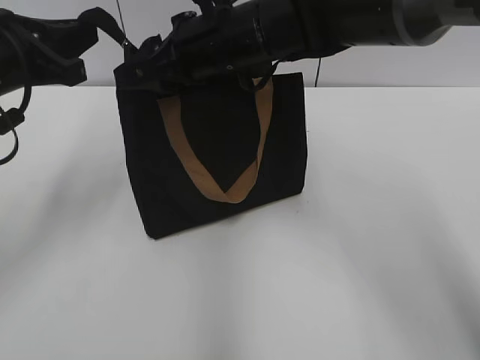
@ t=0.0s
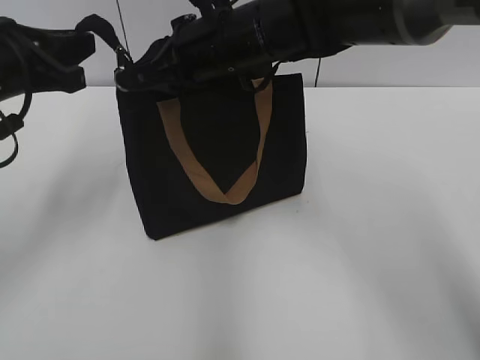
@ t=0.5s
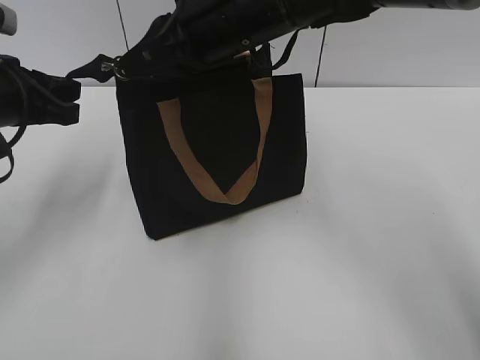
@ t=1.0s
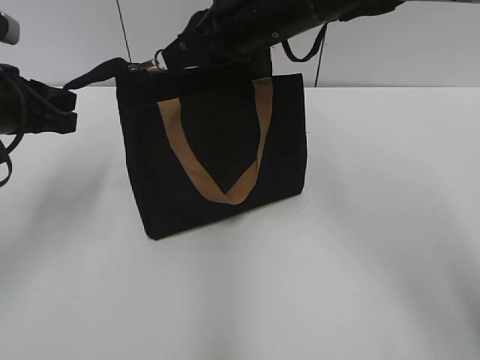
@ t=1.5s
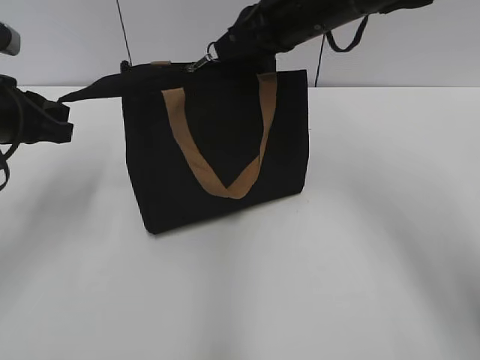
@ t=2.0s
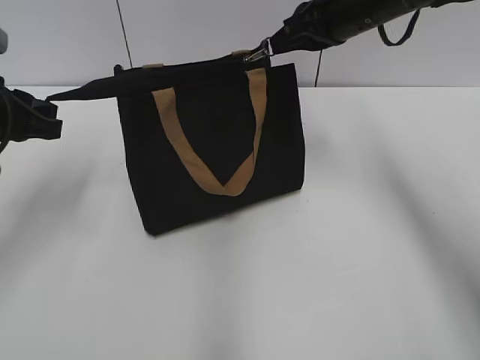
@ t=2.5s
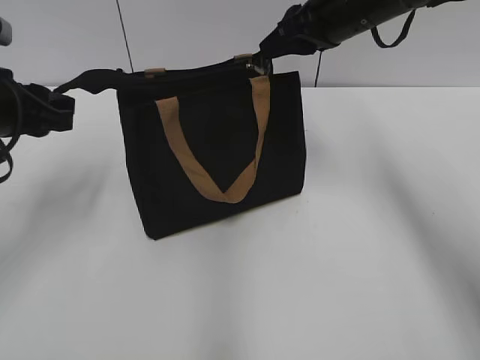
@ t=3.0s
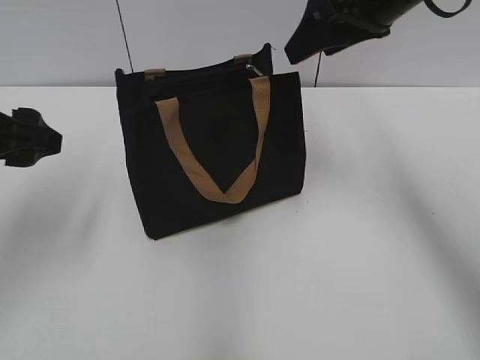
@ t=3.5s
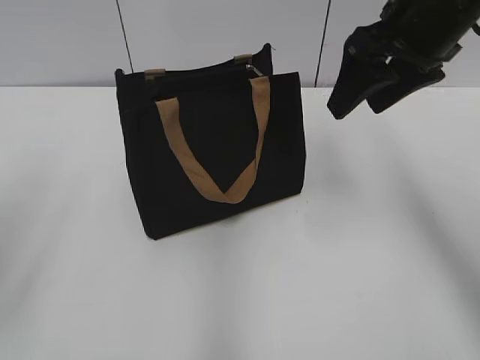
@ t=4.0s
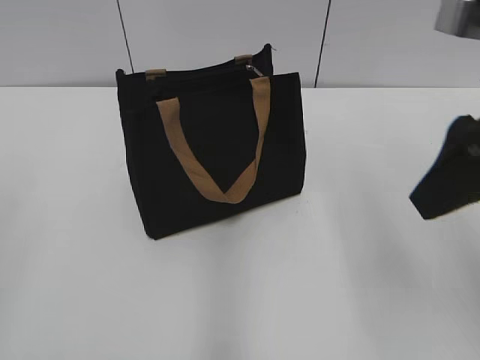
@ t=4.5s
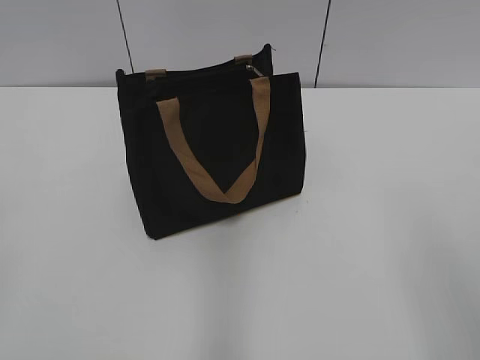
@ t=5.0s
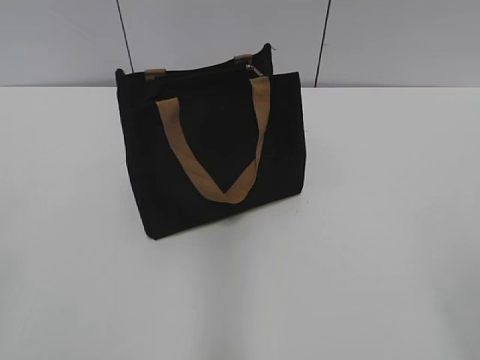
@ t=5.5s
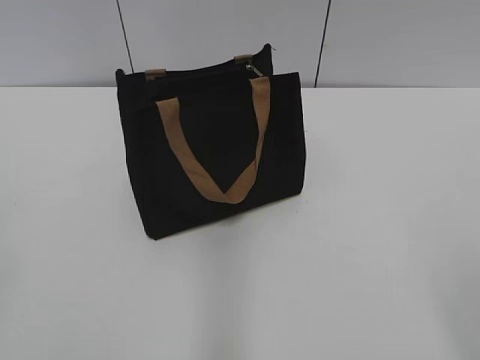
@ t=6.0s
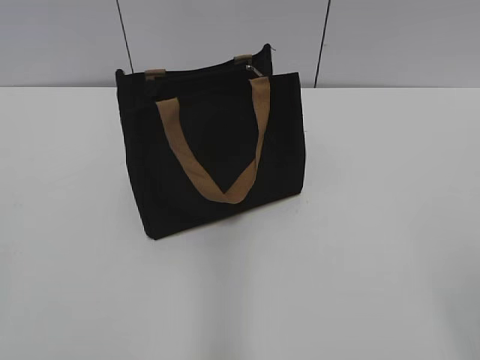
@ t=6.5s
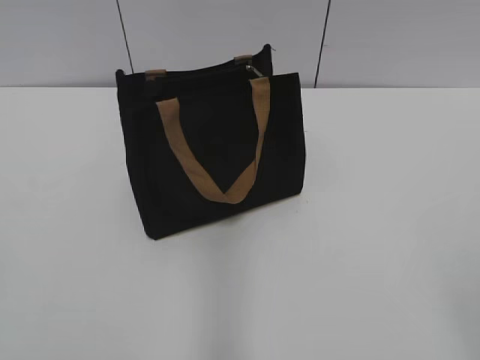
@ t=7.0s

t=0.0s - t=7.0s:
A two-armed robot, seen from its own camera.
Step, t=0.0s - t=3.0s: Zip up the bag with your right hand.
t=0.0s - t=2.0s: The right gripper goes roughly 10 cm to the right, and closes its fingers.
t=2.0s - t=3.5s: The left gripper opens up. The right gripper moves to the right, approximately 5 cm, and opens.
t=3.5s - t=5.0s: The two grippers go roughly 25 cm backward.

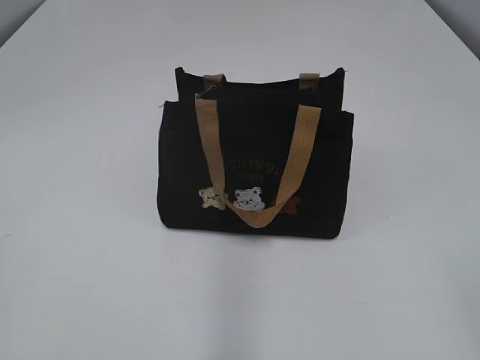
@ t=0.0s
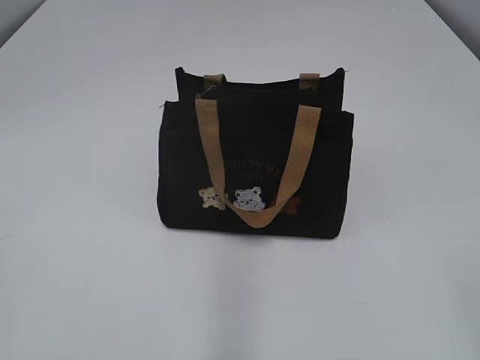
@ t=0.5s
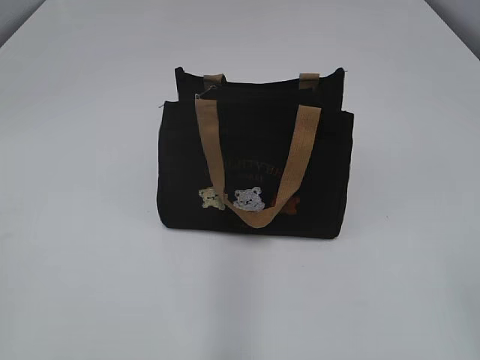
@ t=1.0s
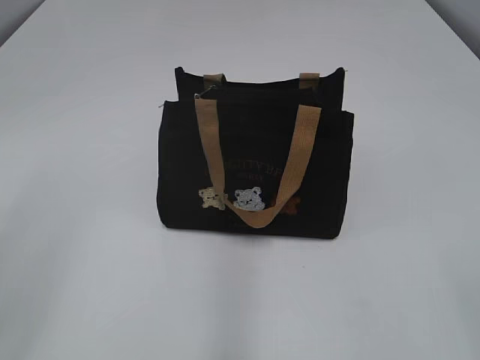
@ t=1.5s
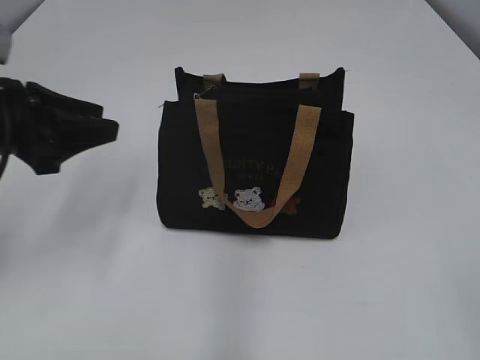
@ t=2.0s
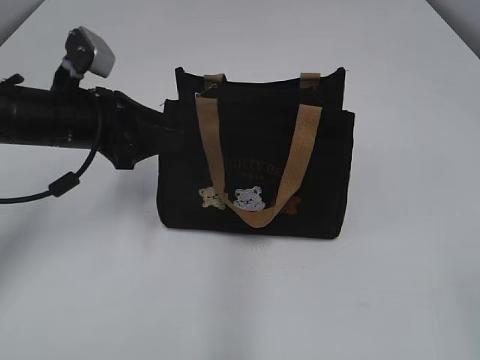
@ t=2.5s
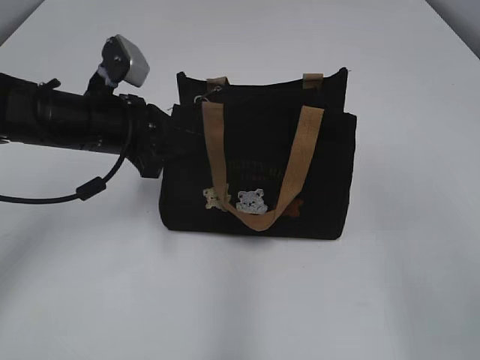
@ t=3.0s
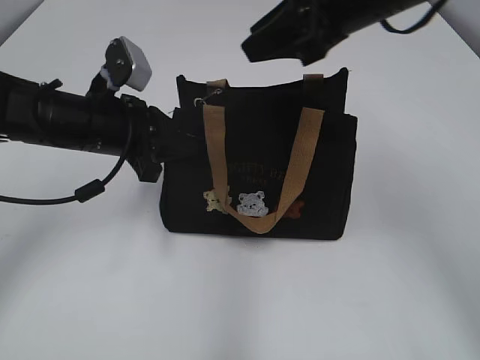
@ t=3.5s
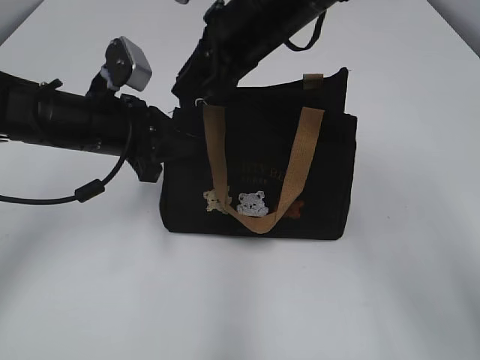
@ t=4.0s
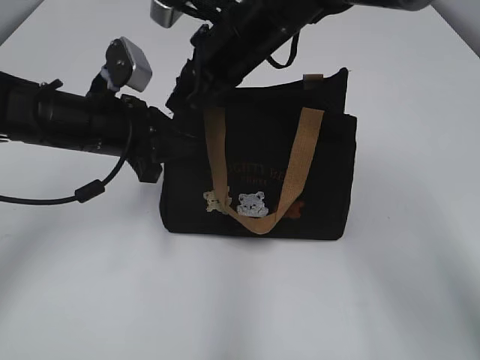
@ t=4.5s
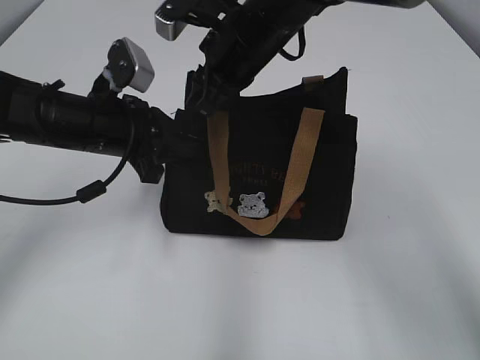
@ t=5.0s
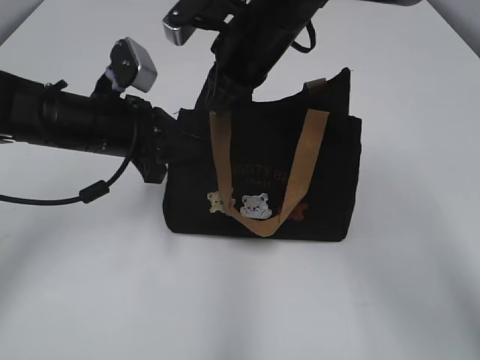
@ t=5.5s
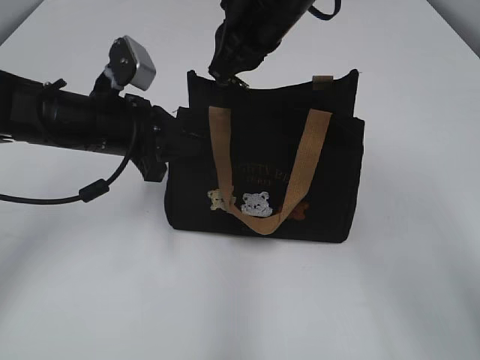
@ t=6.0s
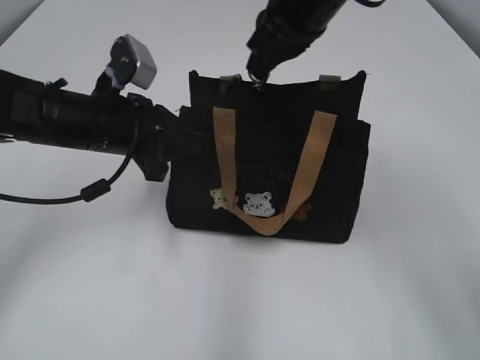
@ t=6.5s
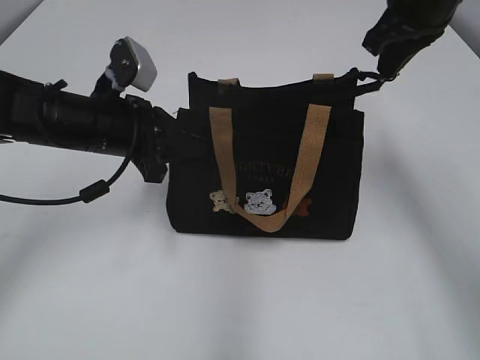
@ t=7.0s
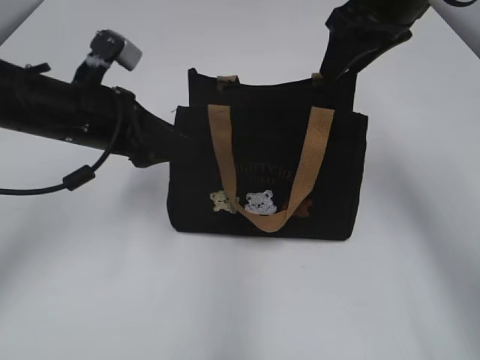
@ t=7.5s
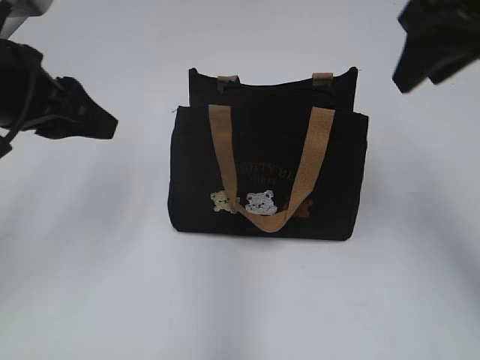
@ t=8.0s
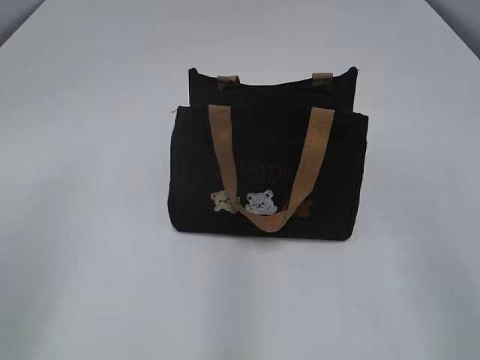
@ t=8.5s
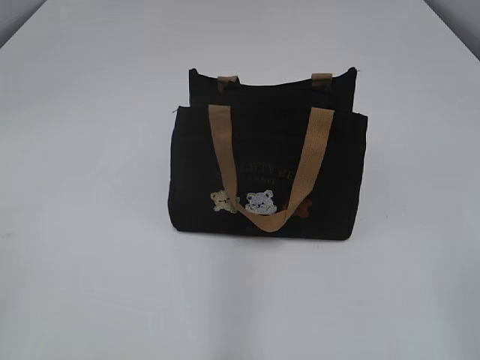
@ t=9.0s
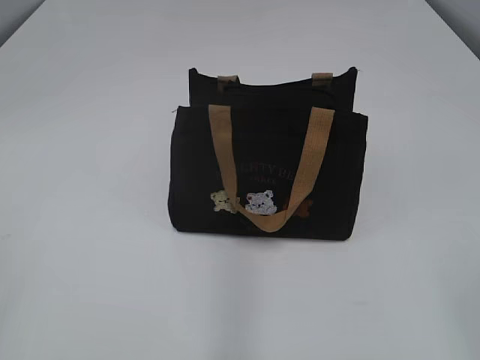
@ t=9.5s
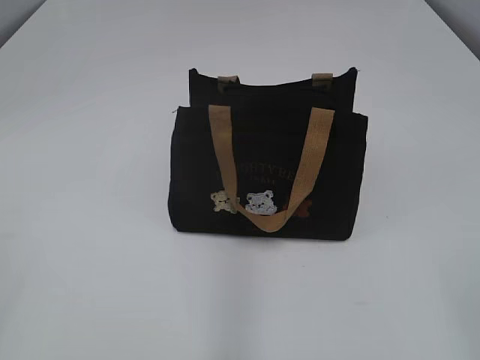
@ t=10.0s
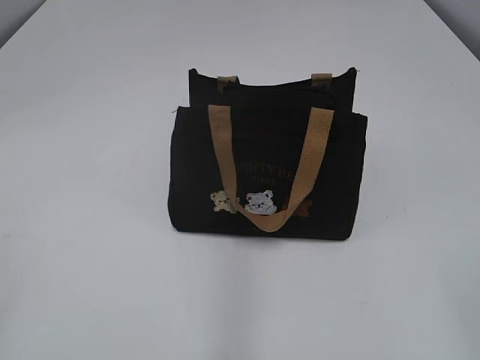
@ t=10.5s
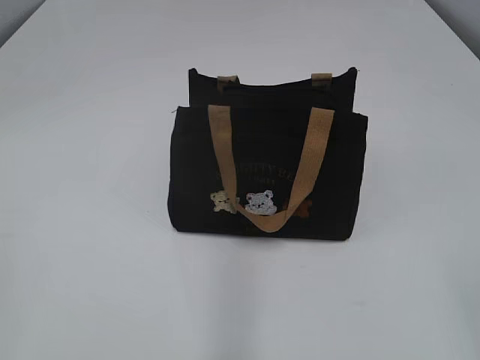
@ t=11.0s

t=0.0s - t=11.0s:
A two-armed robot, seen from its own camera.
Step, t=0.0s - t=7.0s: Pull open the zipper with your right hand.
t=2.0s - t=3.5s: The right gripper shifts approximately 35 cm forward. Meanwhile the left gripper moves to the right, forward and downward, some 15 cm, and closes up.
t=3.5s - t=5.5s: The right gripper shifts roughly 15 cm to the left, downward and forward, and closes.
t=5.5s - t=7.5s: The left gripper opens its fingers. Meanwhile the right gripper moves to the right and upward, approximately 15 cm, and opens up.
t=7.5s - t=9.0s: The right gripper moves backward, roughly 35 cm; the left gripper is displaced backward and to the left by some 35 cm, and closes up.

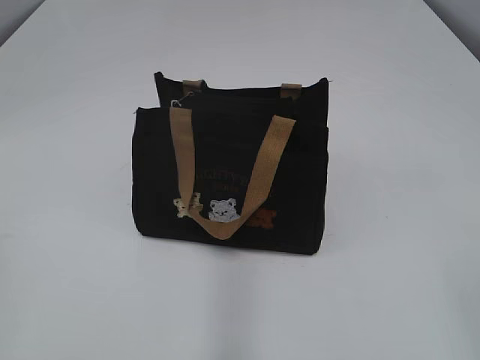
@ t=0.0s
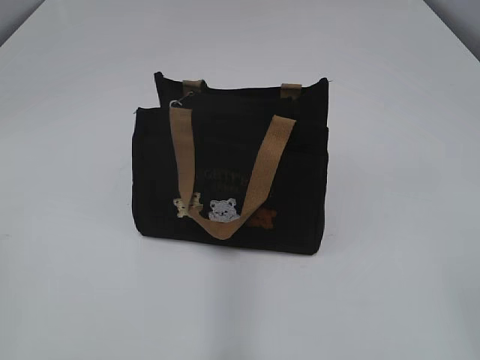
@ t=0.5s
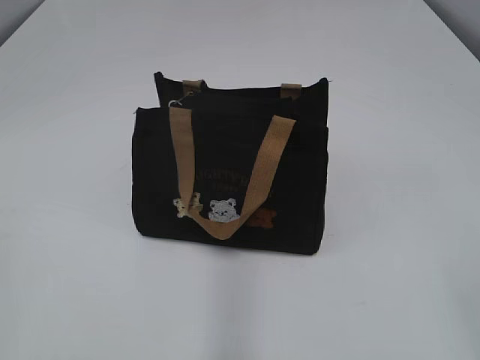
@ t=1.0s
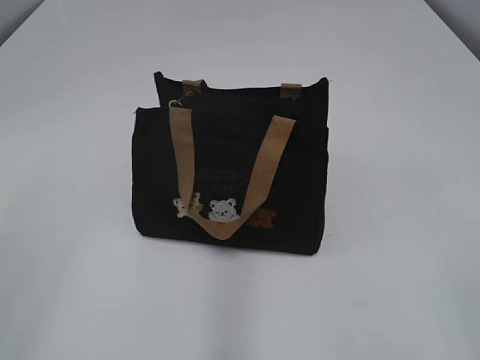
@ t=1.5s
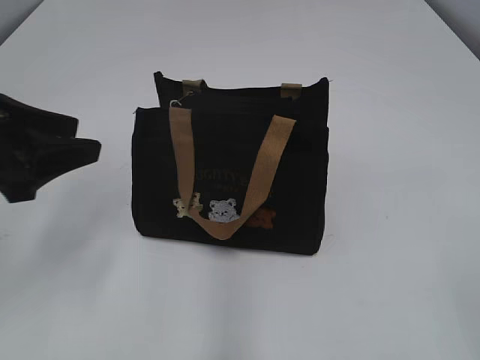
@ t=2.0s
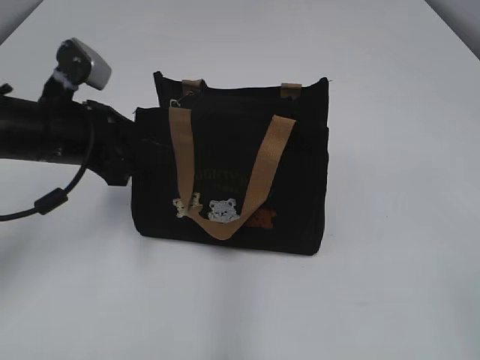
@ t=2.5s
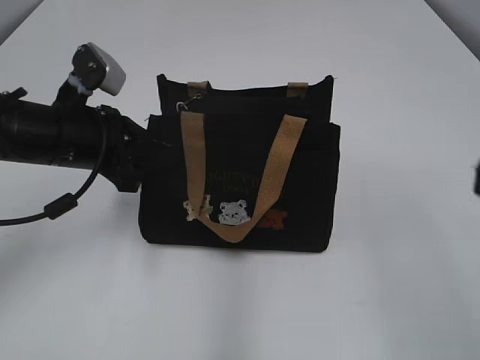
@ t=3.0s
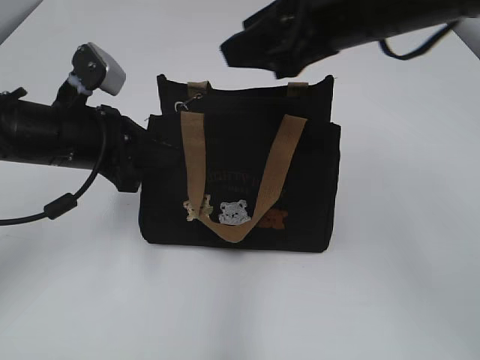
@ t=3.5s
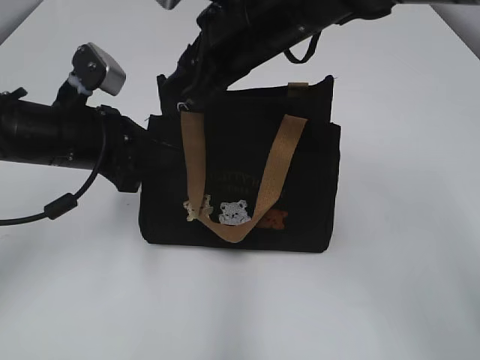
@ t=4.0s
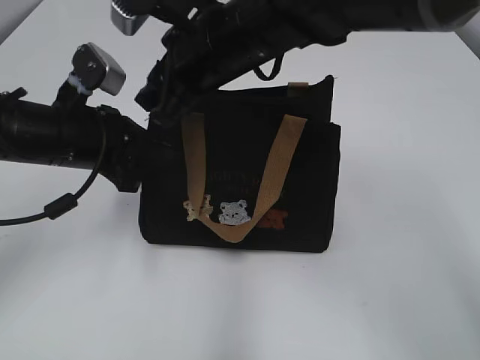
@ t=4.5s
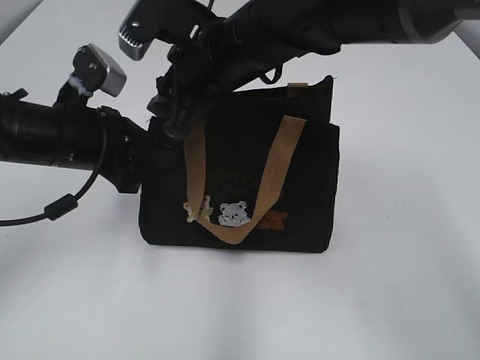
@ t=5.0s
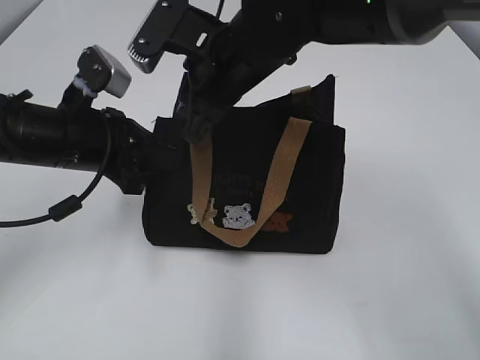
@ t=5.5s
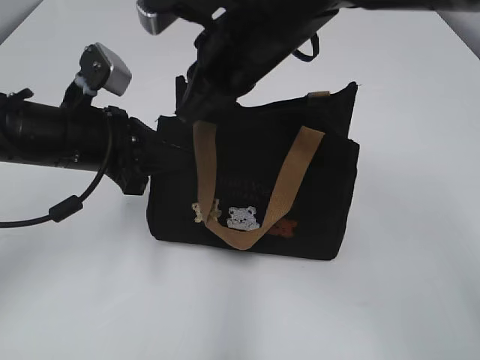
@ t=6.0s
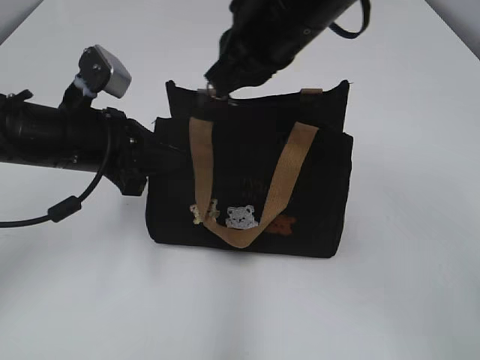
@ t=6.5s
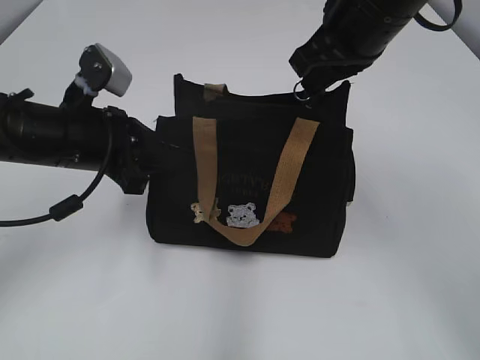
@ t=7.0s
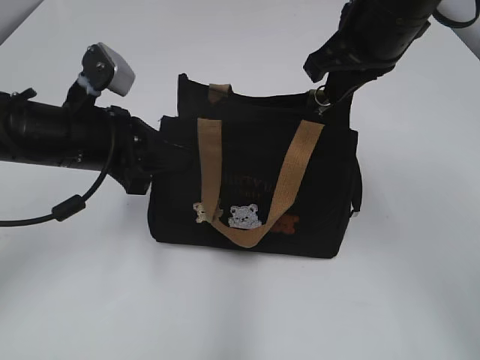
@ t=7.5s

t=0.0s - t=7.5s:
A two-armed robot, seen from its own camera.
t=2.0s - t=4.0s: The left gripper is displaced forward, to the right and downward by roughly 10 cm, and closes. The right gripper travels forward and to the left by approximately 40 cm.
t=4.0s - t=5.5s: The grippers move only a little.
t=5.5s - t=7.5s: The right gripper moves to the right and upward, some 15 cm, and closes.
